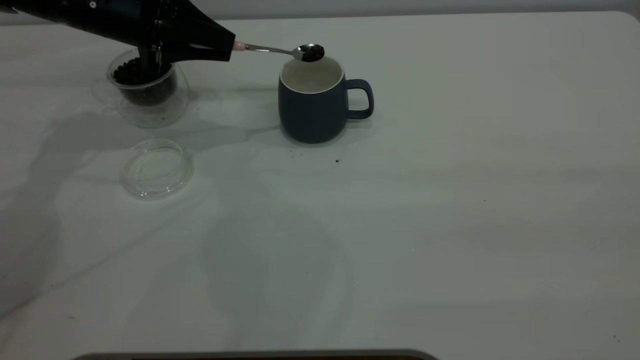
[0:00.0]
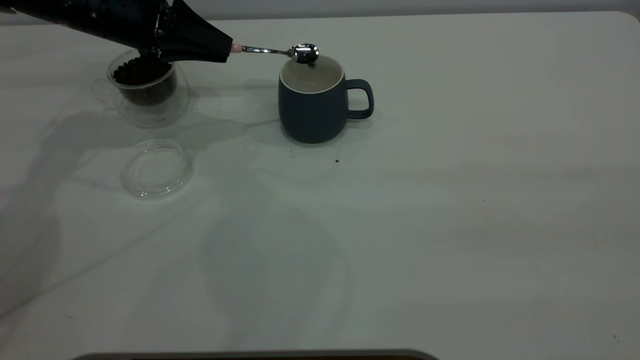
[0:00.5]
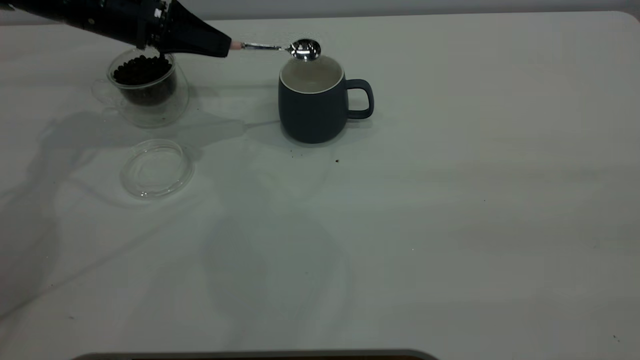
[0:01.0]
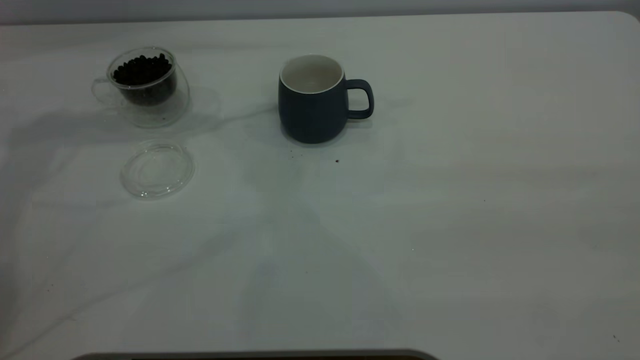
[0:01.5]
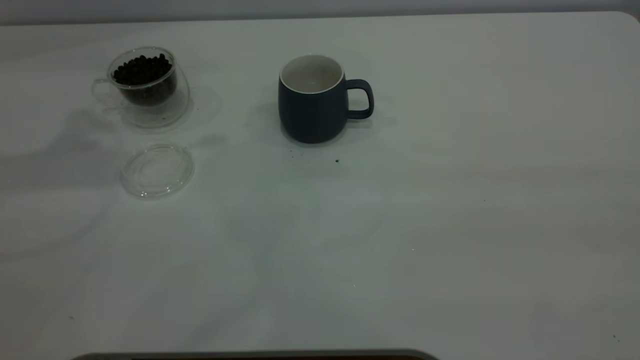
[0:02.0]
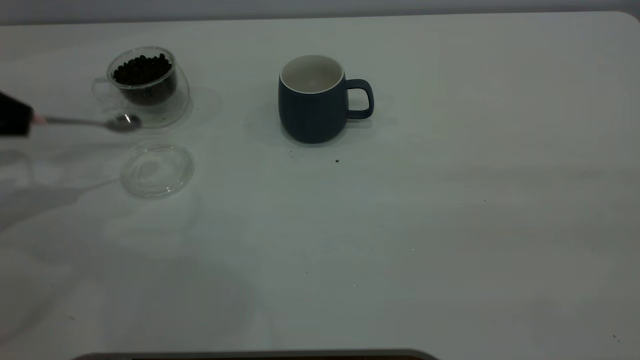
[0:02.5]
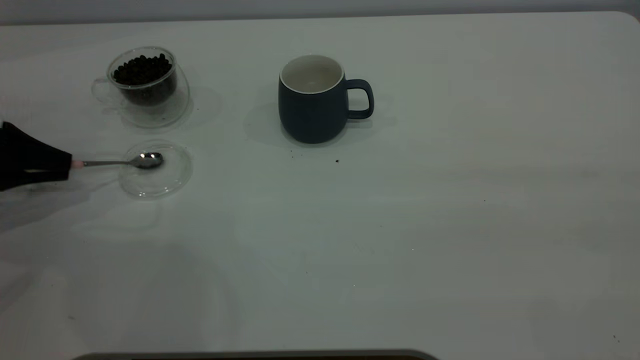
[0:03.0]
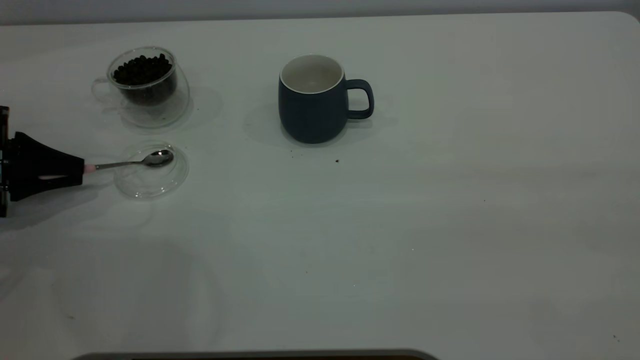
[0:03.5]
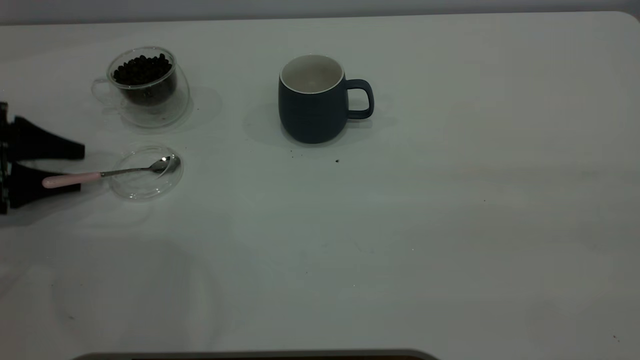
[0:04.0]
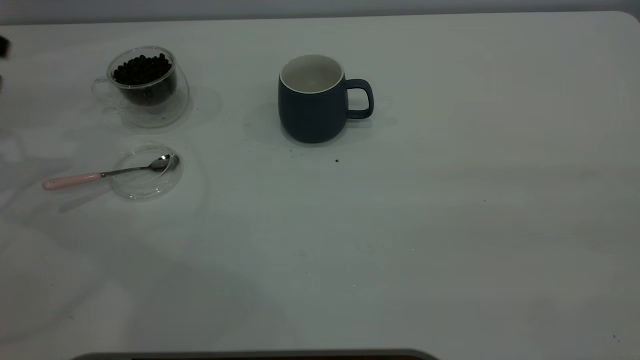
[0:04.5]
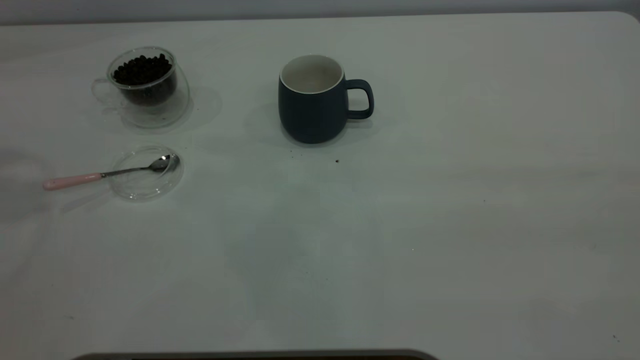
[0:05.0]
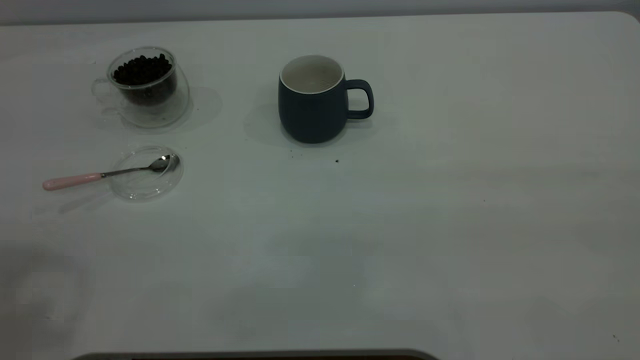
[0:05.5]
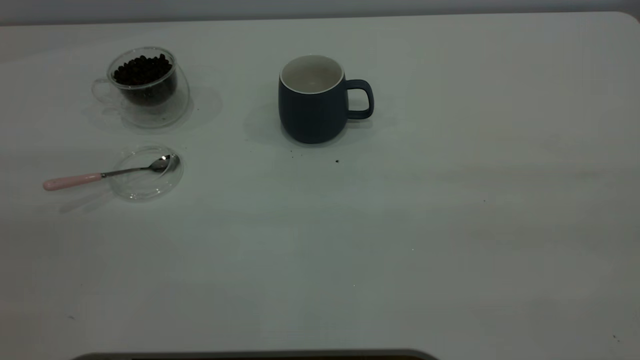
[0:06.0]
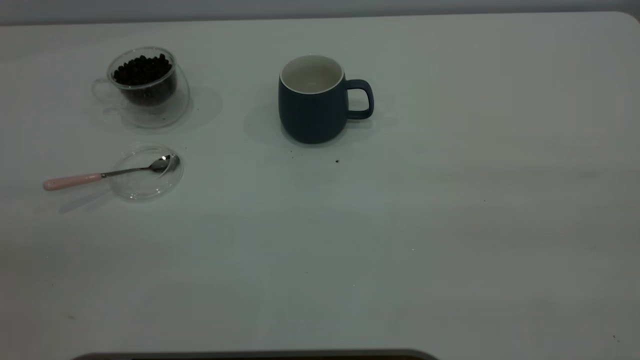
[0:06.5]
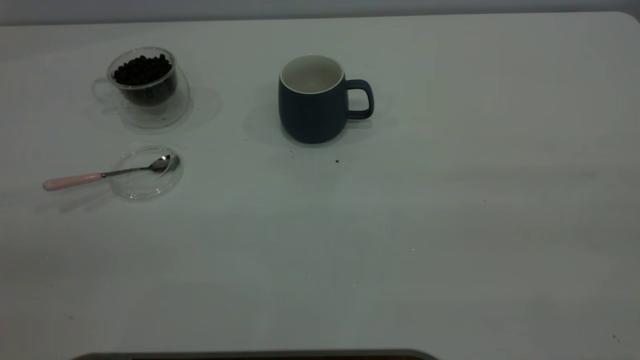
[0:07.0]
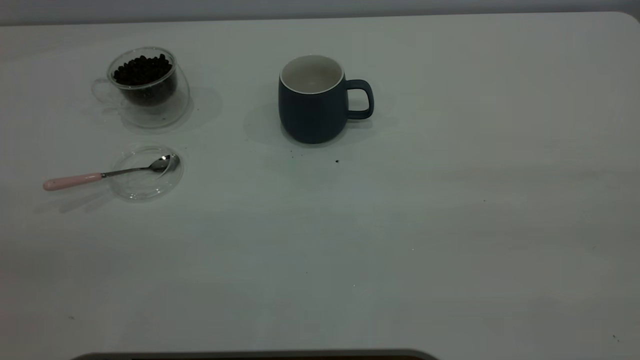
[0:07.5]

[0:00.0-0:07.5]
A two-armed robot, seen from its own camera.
Task of the whole recording: the right gripper place the grey cup in the center of the table, the left gripper take the pink spoon from the cup lid and scoop out the coffee beans from the coffee cup and put them into the grey cup, the left gripper put the spoon back into the cup lid.
Step, 0:01.5 to 0:04.0: Place the spoon back in its original place.
0:00.0 to 0:02.0: The left gripper shifts approximately 20 cm upward, to the left and backward.
0:02.0 to 0:04.0: The left gripper travels downward by some 25 cm, and opens.
0:04.0 to 0:05.5: The left gripper goes approximately 40 cm upward and backward.

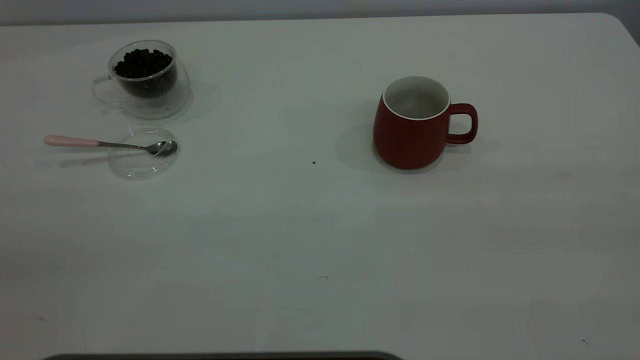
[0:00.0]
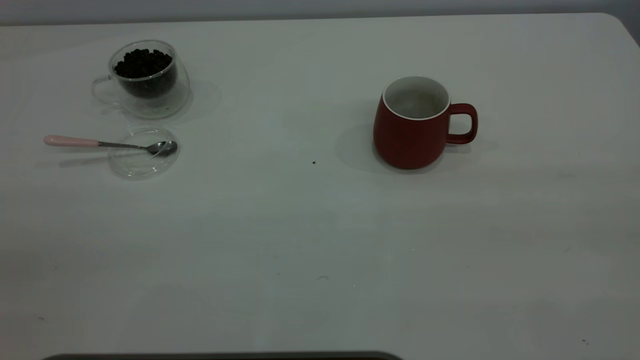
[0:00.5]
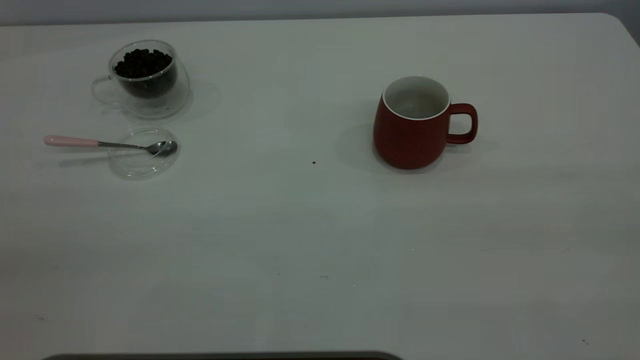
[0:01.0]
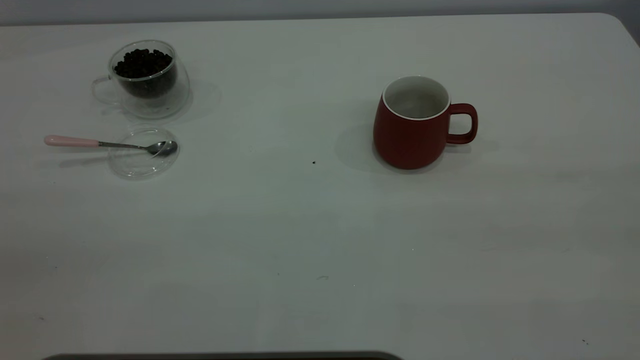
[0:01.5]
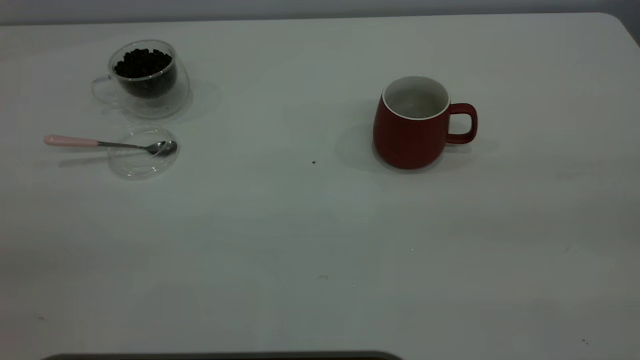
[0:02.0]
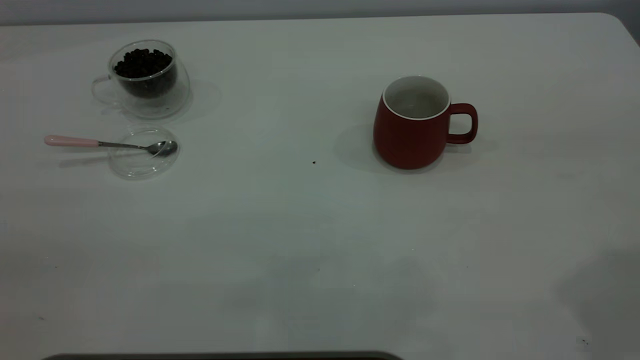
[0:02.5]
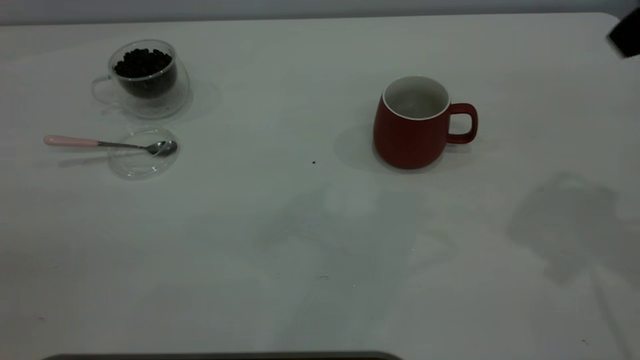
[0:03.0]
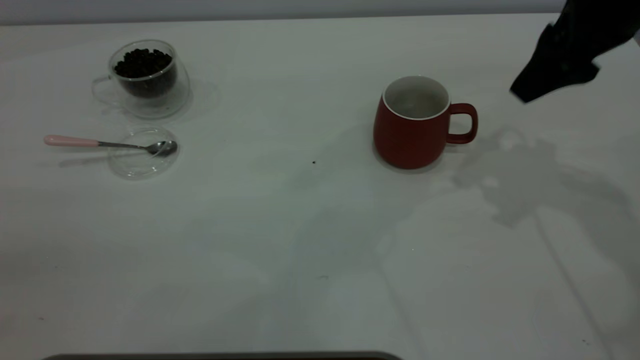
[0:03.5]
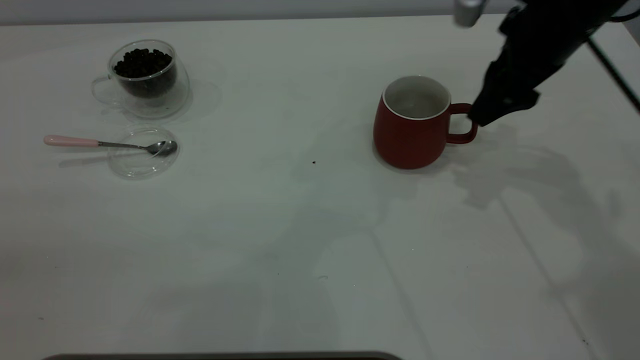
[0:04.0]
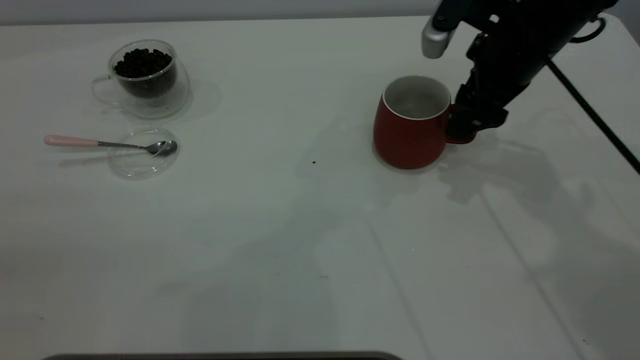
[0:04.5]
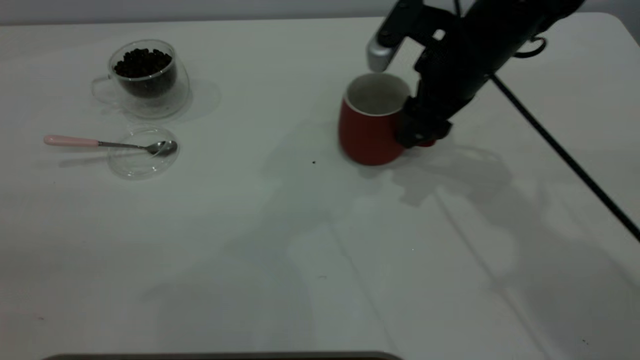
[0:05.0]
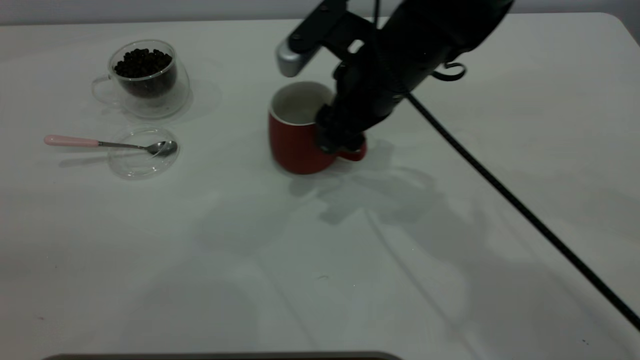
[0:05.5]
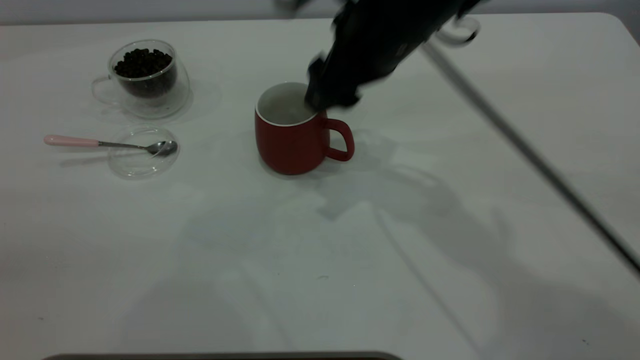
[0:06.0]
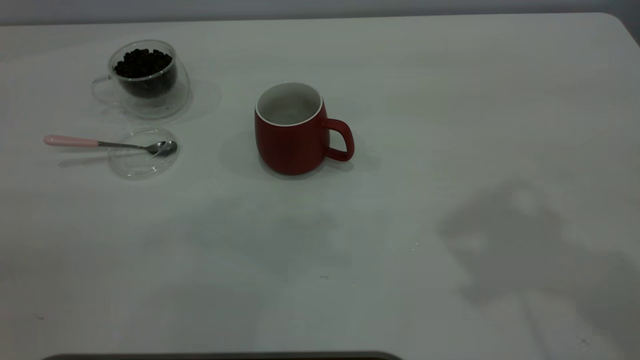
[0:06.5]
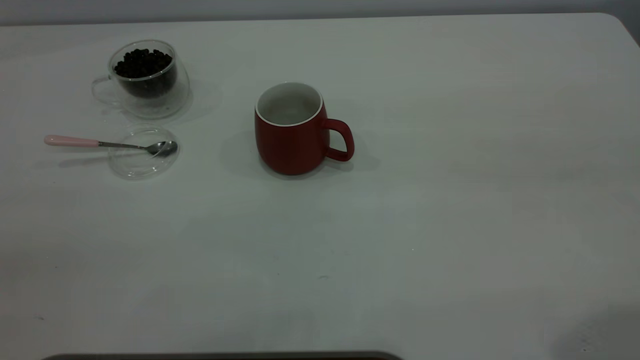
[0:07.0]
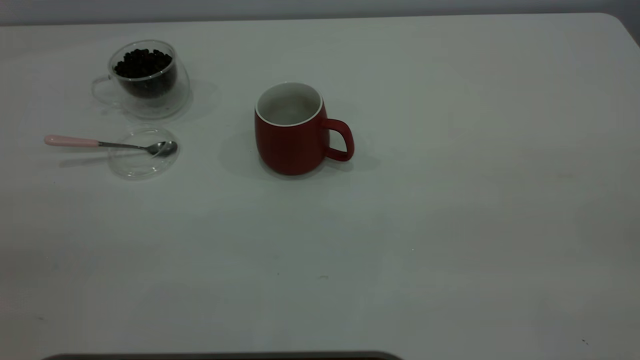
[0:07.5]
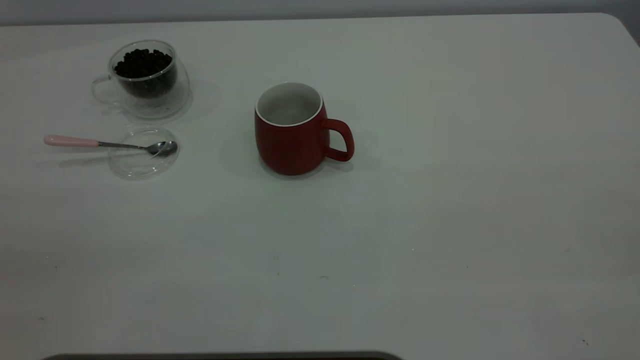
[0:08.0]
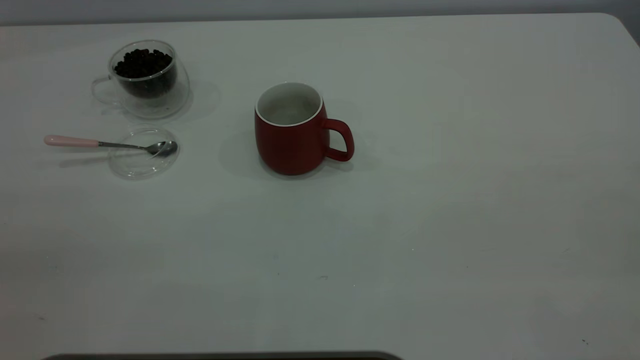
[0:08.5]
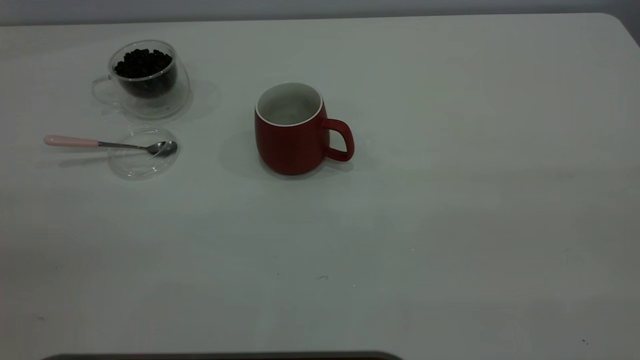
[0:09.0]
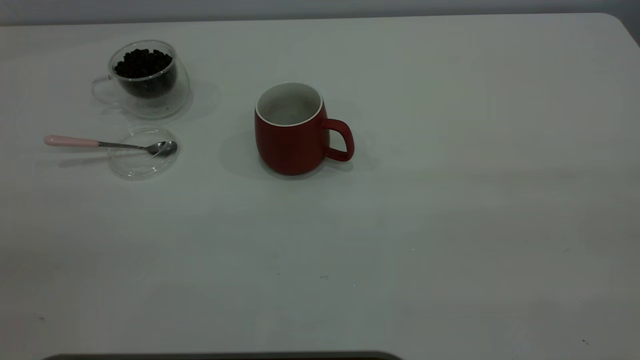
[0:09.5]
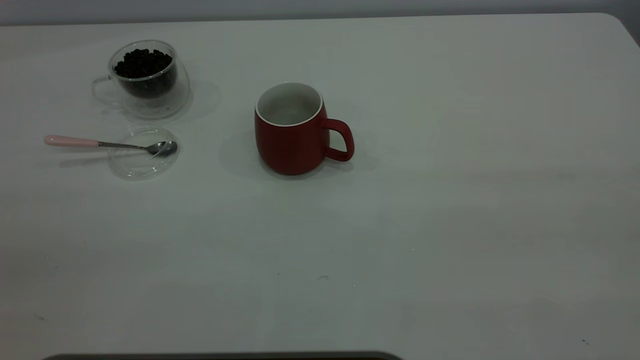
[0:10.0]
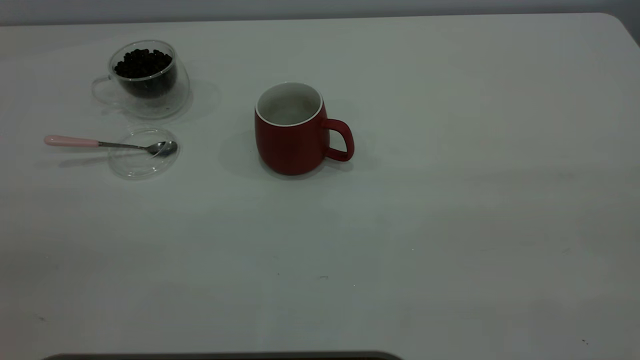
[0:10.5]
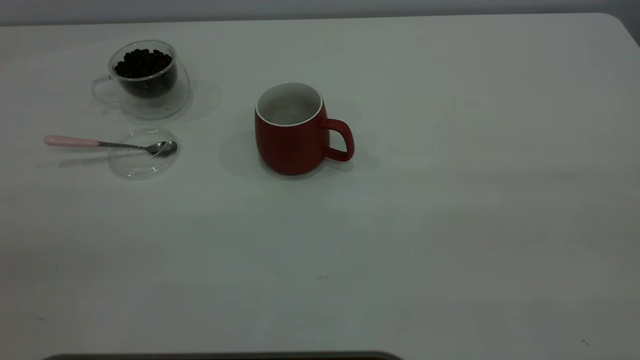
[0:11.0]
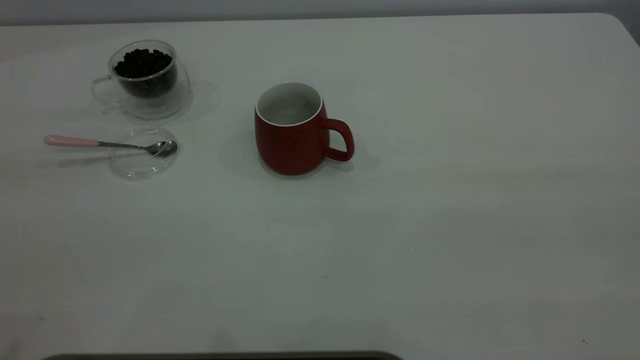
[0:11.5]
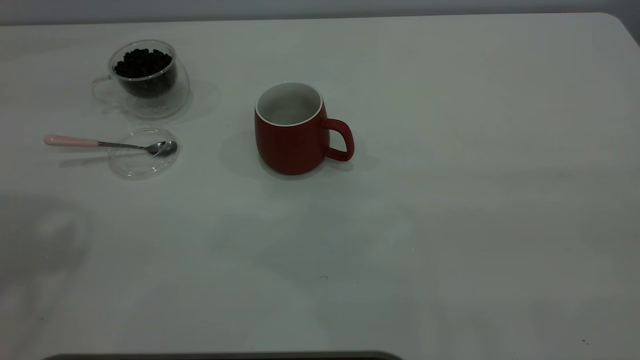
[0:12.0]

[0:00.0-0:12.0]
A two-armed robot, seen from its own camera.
Task of the whole recording: the right gripper place the red cup in the center of the table, the left gripper take the pink spoon from the cup lid and scoop out the coffee beans from the coffee cup and put them into the red cup, the left gripper put the spoon back into the cup lid.
Step, 0:00.0 to 0:06.0: Move the cup to the center of view.
0:02.0 to 0:04.0: The right gripper goes about 40 cm forward and downward.
0:04.0 to 0:06.0: The right gripper goes approximately 15 cm to the left.
0:06.0 to 0:08.0: The right gripper heads backward, to the right and upward, covering about 40 cm.
